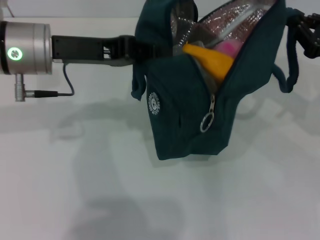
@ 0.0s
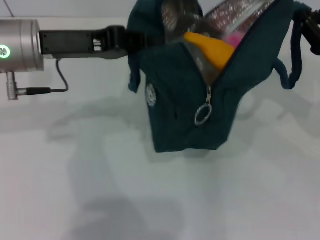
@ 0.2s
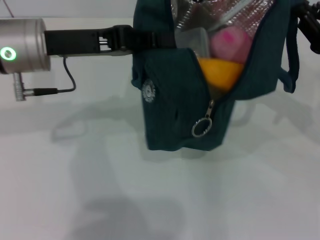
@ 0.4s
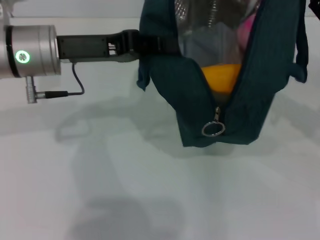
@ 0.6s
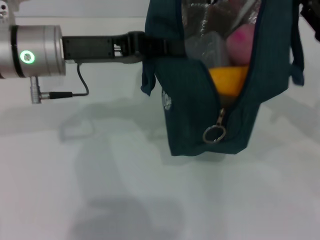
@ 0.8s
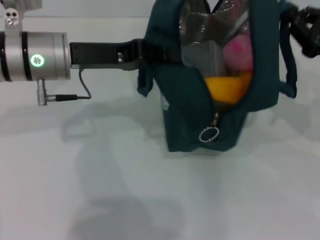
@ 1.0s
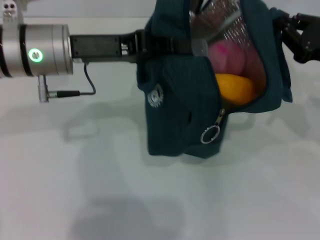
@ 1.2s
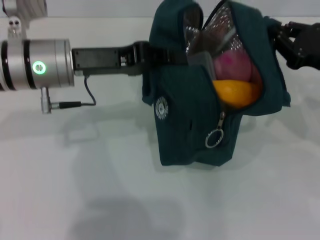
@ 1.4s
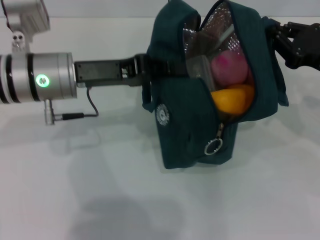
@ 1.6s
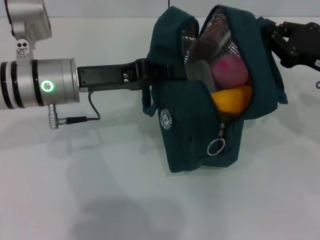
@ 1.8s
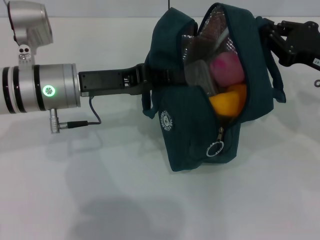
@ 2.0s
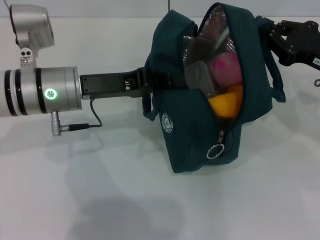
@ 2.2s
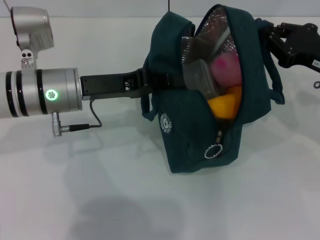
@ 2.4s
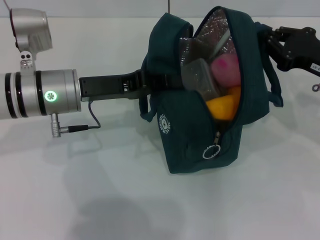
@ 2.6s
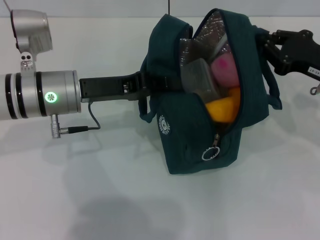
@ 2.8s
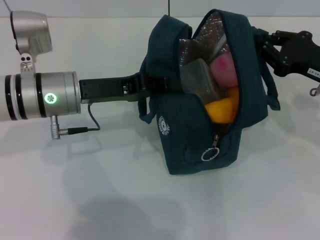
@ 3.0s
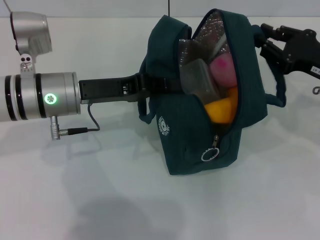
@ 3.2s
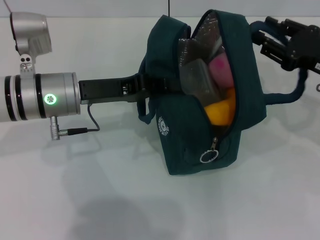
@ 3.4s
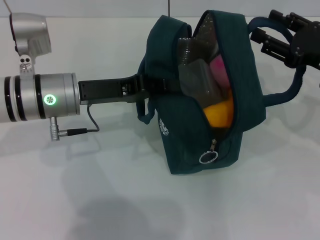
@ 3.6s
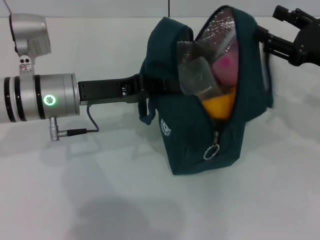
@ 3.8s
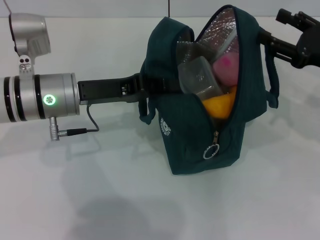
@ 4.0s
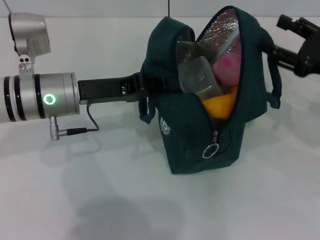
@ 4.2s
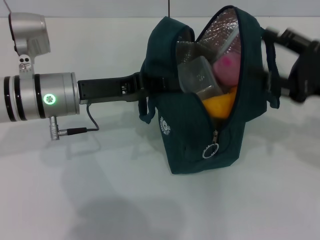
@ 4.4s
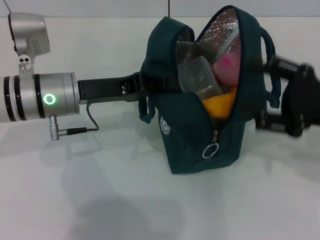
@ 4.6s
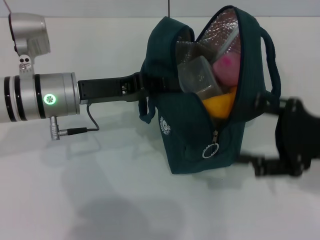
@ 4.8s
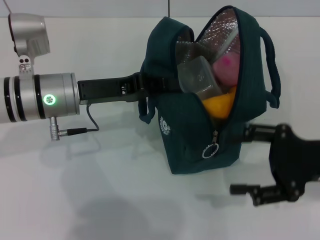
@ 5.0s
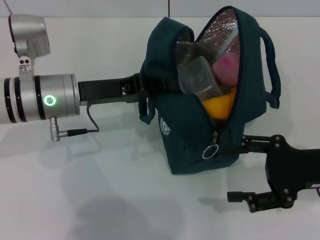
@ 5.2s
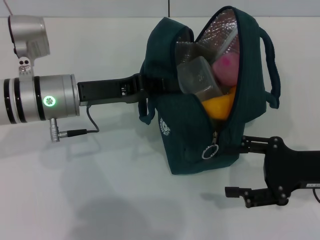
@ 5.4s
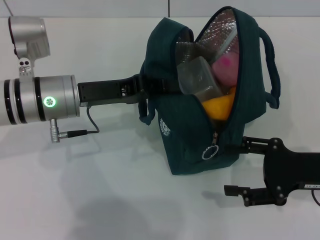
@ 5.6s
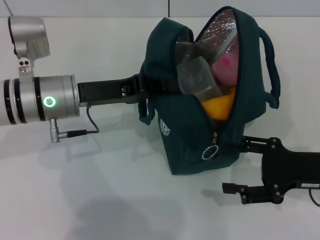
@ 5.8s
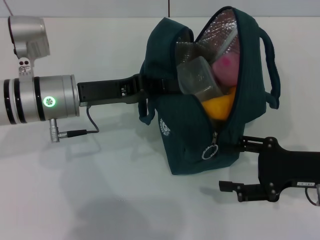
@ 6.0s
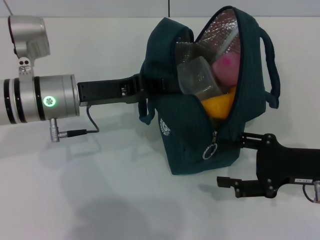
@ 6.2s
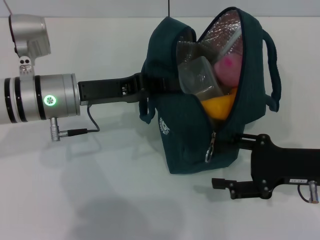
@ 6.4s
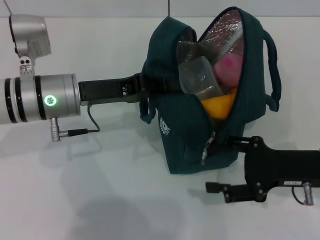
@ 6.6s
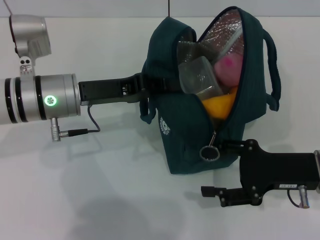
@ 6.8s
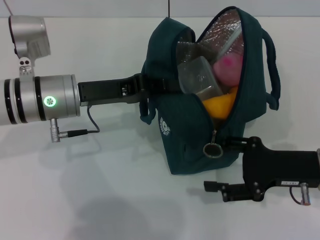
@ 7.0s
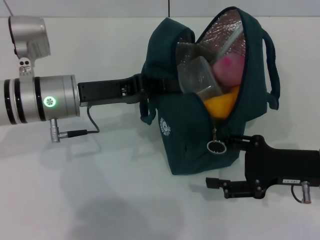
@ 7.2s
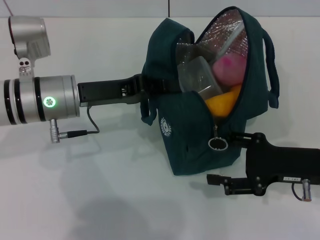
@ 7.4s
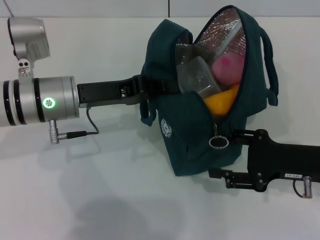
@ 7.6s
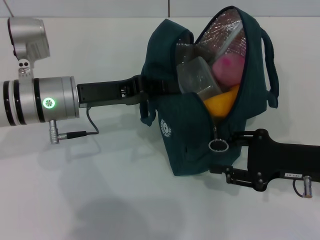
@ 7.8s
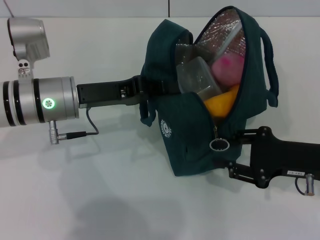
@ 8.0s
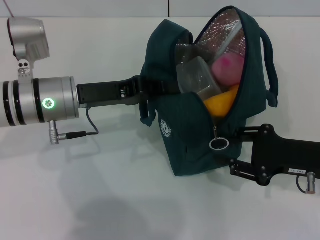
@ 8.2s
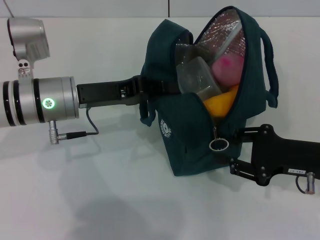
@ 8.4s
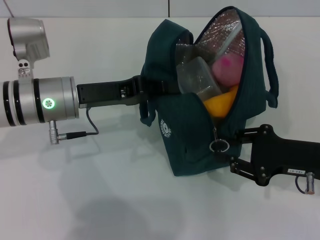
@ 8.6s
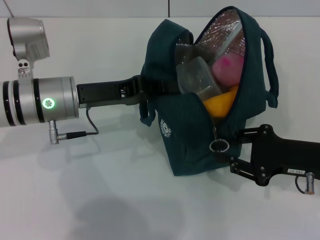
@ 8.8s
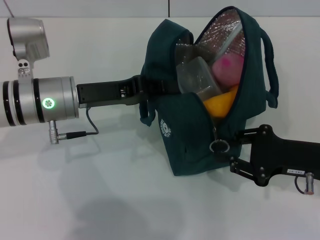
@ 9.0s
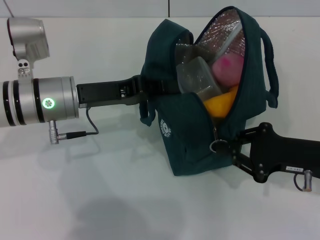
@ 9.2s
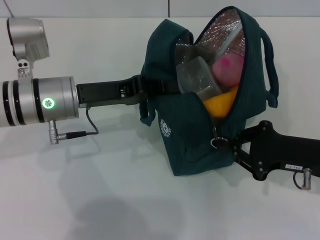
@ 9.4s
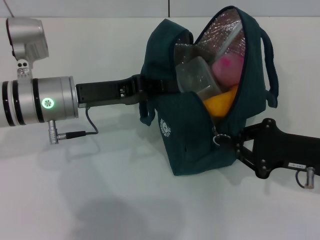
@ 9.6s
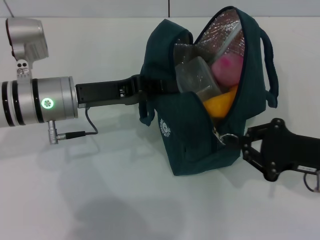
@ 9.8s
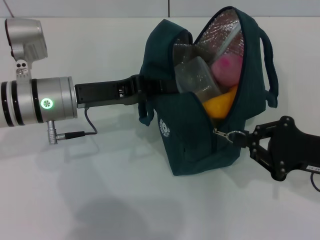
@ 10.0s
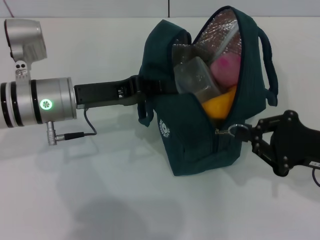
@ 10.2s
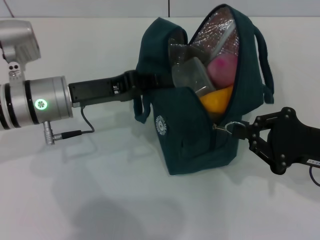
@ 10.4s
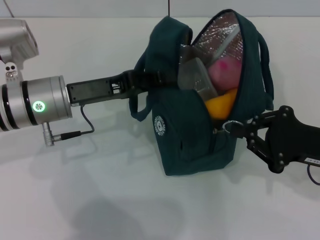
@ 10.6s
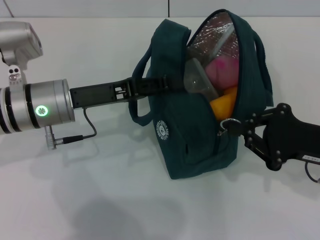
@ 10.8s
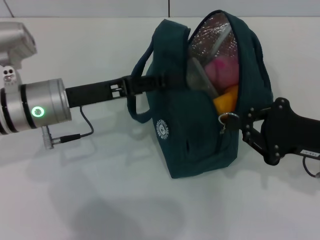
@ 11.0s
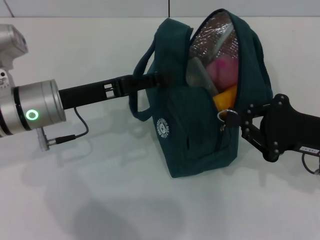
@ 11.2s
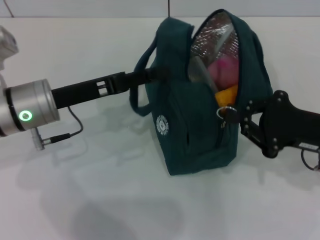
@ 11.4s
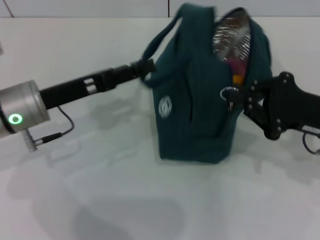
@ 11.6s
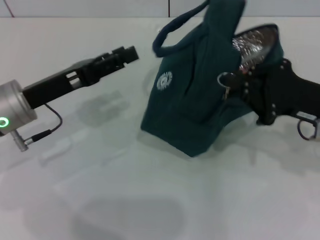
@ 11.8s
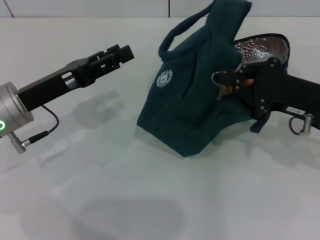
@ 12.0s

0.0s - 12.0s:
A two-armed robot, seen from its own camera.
Step, 0.0s - 3.6s: Hold the lunch bag with your right hand.
Step, 3.8s - 11.4s: Hold the lunch bag with your left hand.
3.0s - 4.4s: The right gripper opens its fingers.
4.4s - 6.0s: The right gripper goes roughly 5 cm downward.
6.0s - 7.6s: The grippers move only a little.
7.6s - 9.0s: The right gripper closes its fingers.
9.0s - 10.4s: The grippers move only a little.
10.4s - 12.0s: The right gripper ends up approximately 5 cm from where it was. Meanwhile the left gripper moves some 5 cm, and opens its fingers.

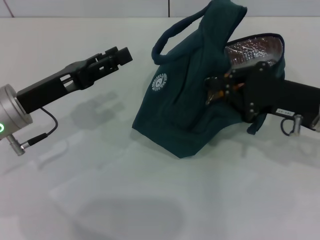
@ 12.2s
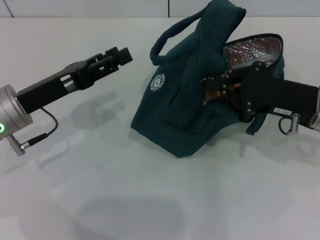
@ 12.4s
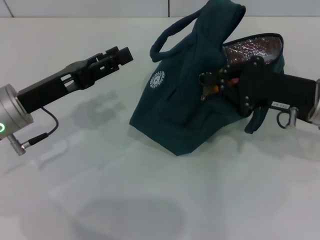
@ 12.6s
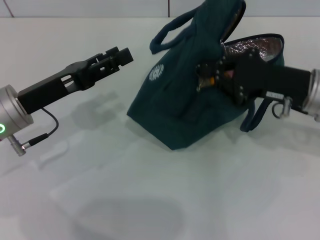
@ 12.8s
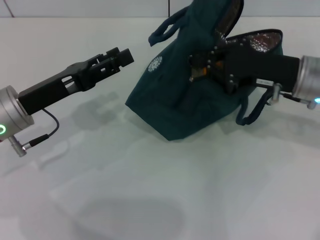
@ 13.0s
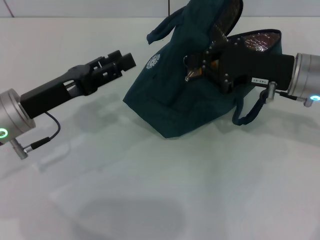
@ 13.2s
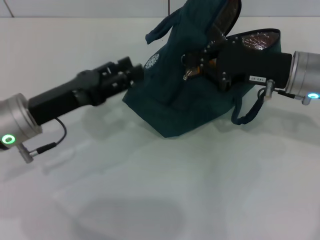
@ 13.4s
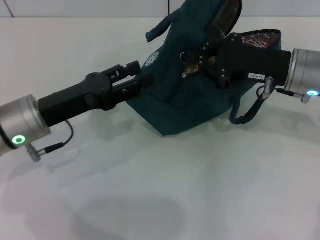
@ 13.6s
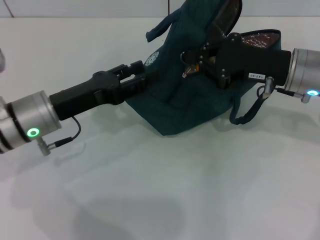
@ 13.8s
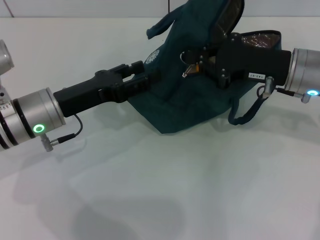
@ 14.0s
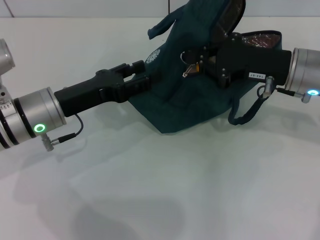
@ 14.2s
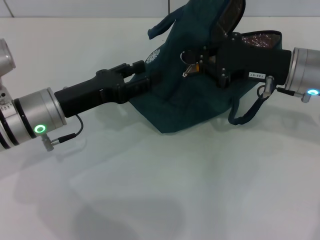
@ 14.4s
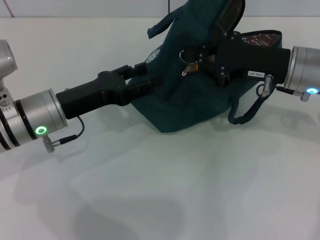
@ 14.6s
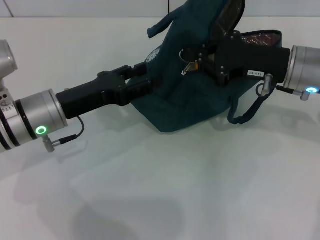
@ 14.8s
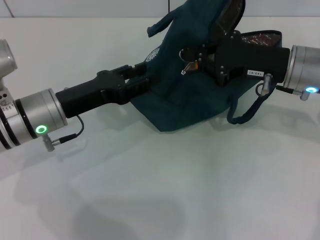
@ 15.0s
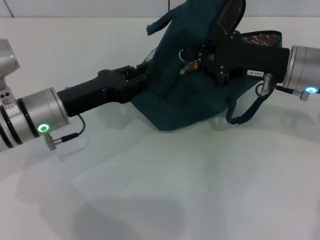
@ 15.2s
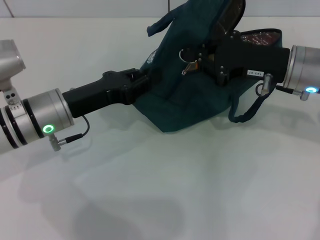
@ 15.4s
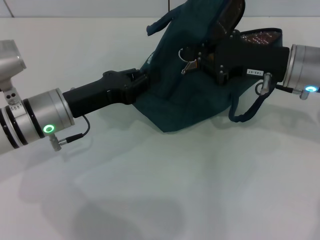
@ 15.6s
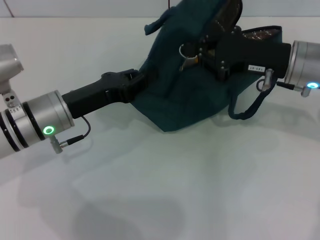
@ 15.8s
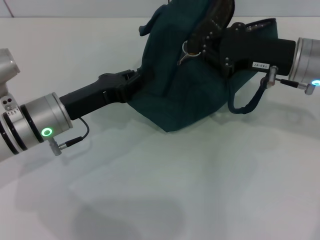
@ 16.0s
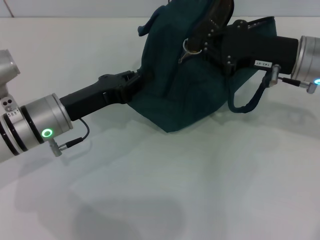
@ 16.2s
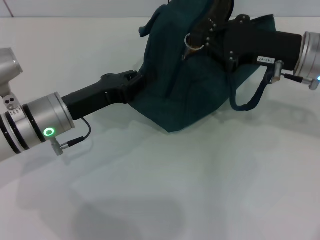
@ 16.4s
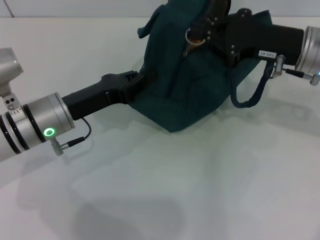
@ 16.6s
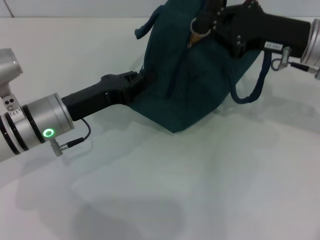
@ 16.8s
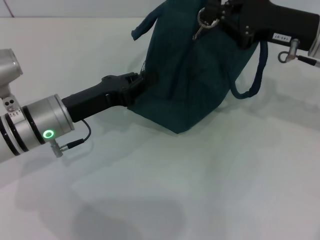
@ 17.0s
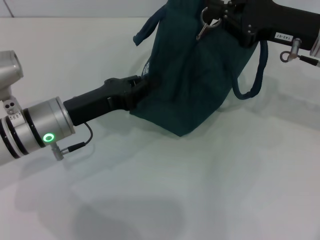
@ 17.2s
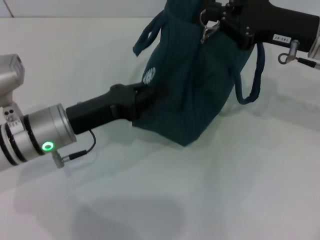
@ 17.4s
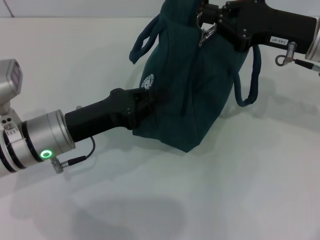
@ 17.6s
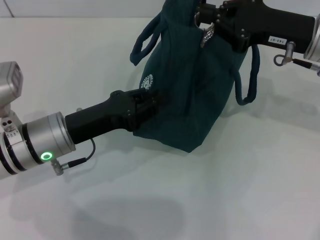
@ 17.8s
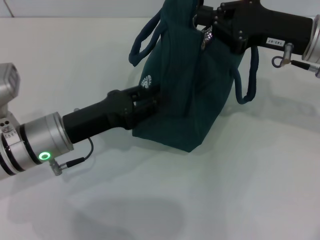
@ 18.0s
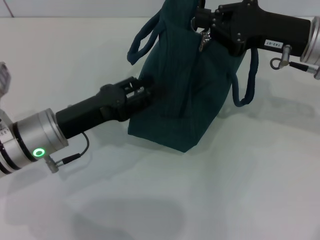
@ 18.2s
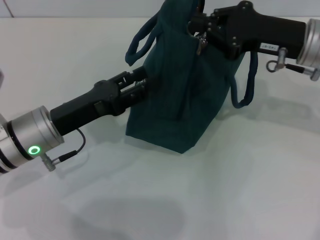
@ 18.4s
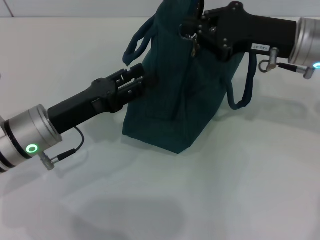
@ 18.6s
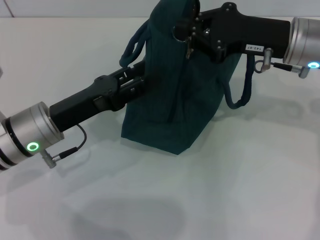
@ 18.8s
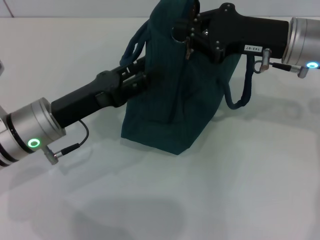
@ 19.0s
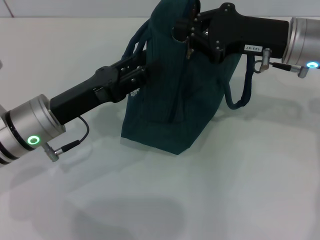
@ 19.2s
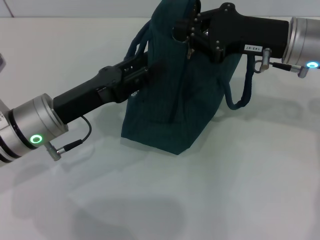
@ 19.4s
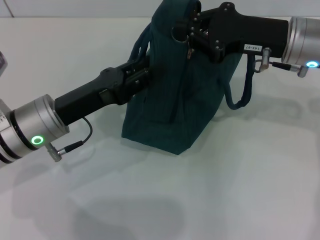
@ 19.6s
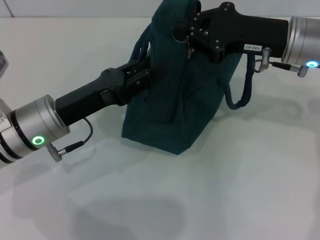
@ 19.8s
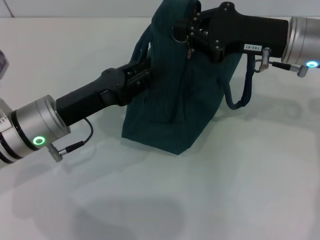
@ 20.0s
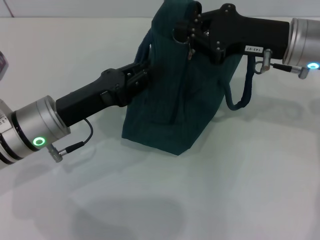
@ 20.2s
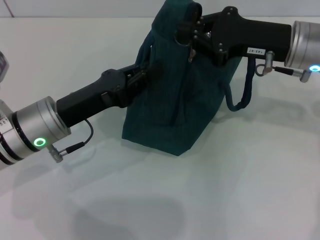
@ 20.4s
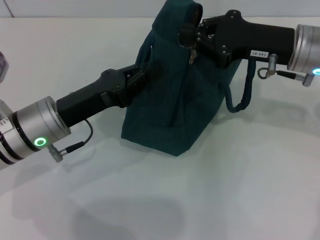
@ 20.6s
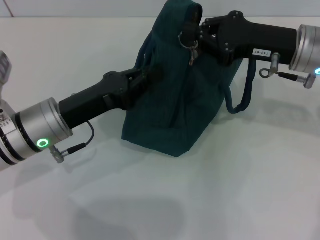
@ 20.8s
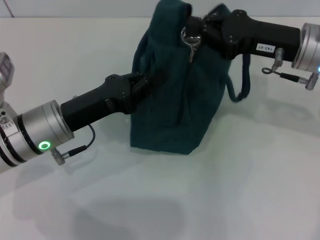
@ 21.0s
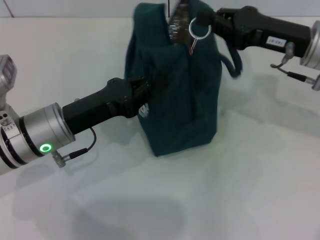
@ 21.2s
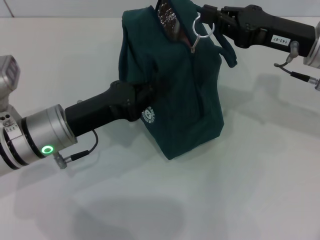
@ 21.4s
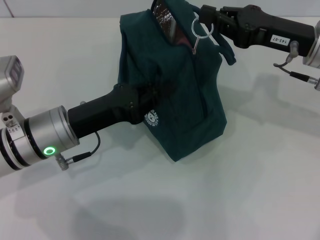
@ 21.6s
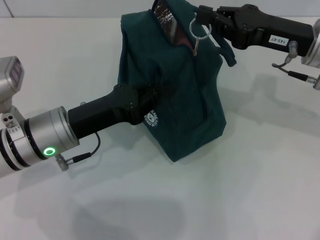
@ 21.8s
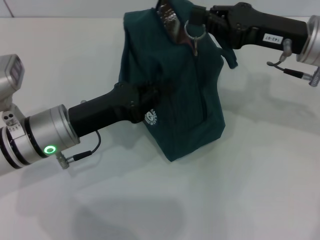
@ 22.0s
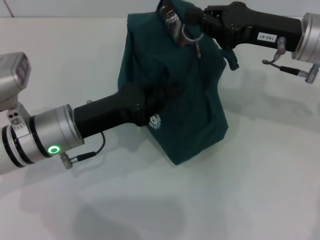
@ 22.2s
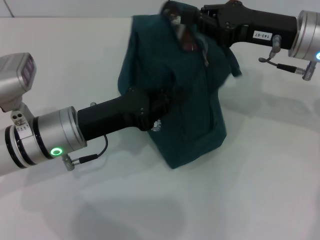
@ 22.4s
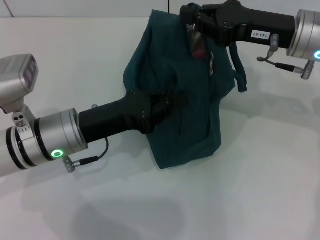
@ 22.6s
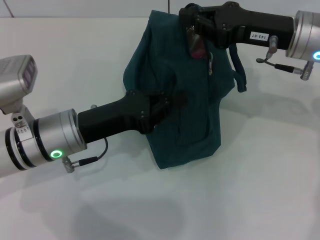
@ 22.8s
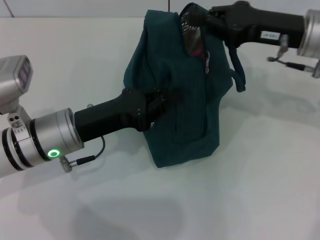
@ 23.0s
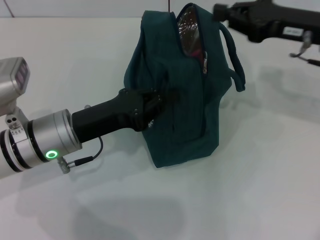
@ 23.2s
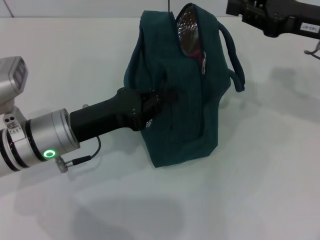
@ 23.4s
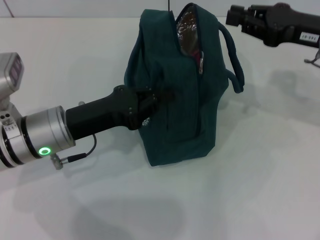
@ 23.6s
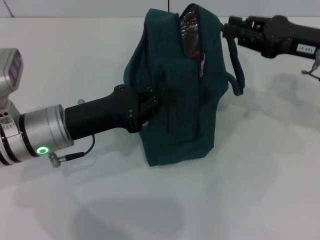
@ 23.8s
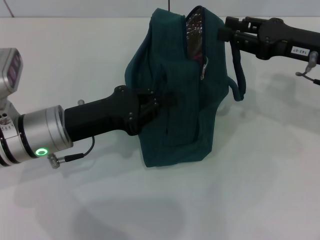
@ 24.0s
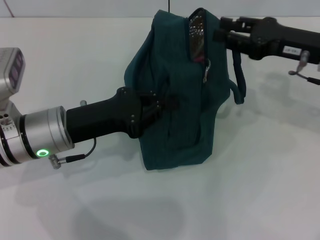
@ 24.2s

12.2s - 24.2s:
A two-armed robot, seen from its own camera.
12.2s - 13.8s: The right gripper ends up roughly 5 cm from where it was.
13.8s - 15.2s: Both grippers stay about where they are.
15.2s - 16.6s: The left gripper closes.
16.6s - 18.2s: The left gripper opens.
18.2s - 19.8s: The grippers make only small movements.
19.8s - 21.2s: The left gripper closes.
22.6s - 24.2s: The right gripper changes place by roughly 5 cm, and opens its fingers.
